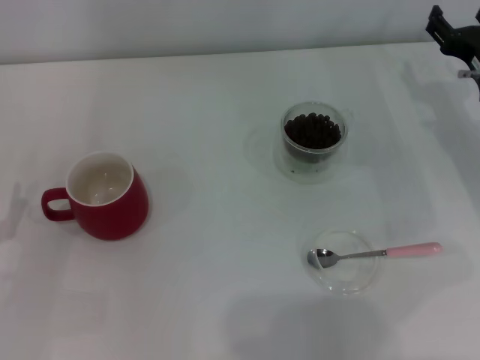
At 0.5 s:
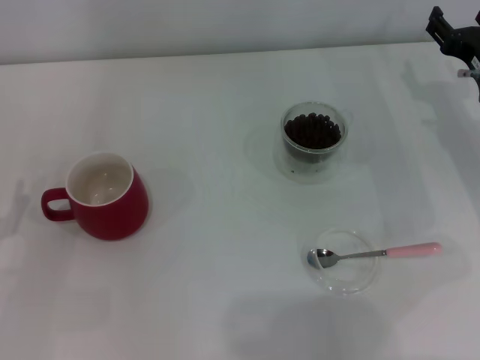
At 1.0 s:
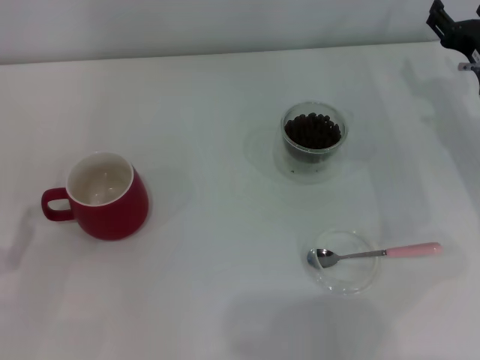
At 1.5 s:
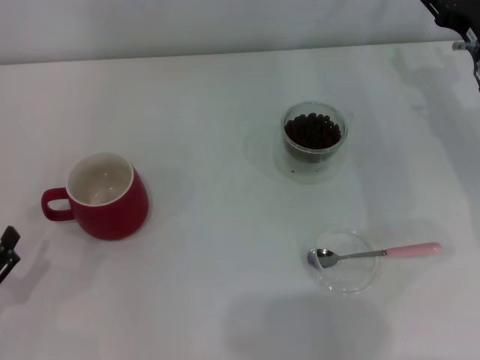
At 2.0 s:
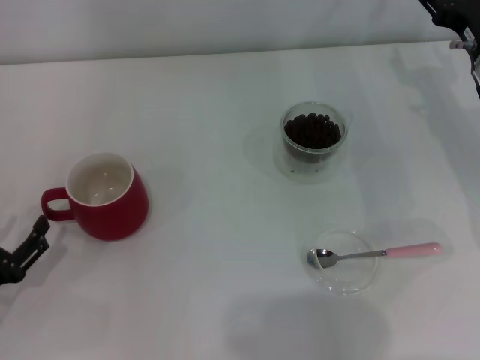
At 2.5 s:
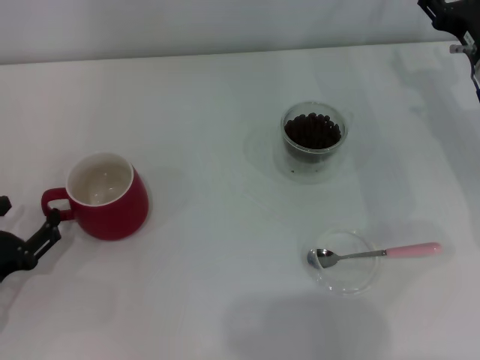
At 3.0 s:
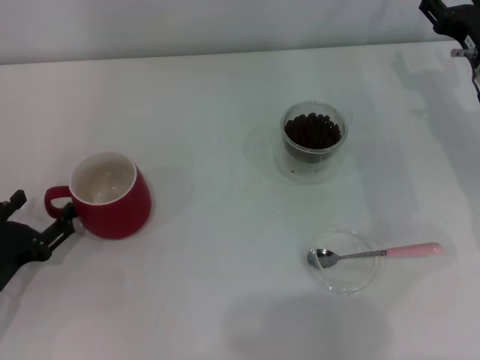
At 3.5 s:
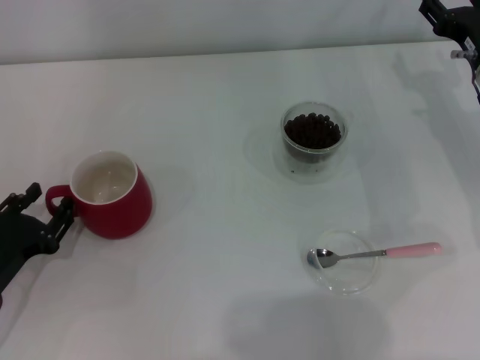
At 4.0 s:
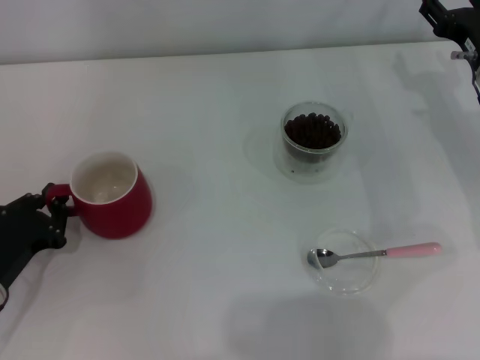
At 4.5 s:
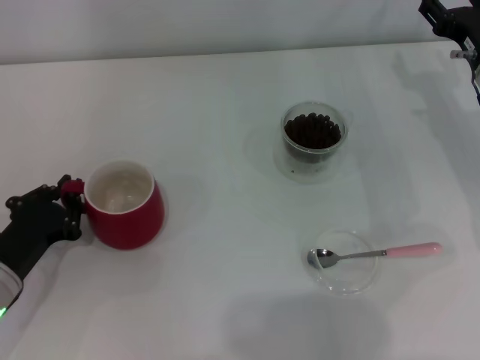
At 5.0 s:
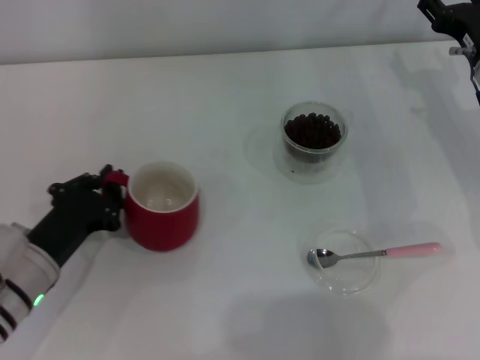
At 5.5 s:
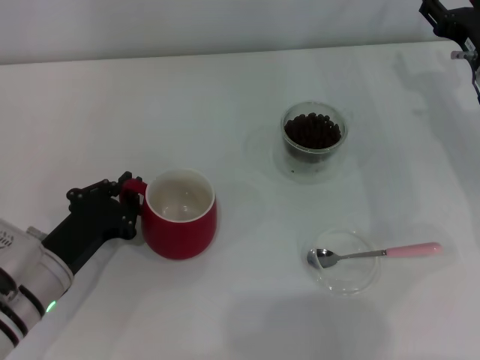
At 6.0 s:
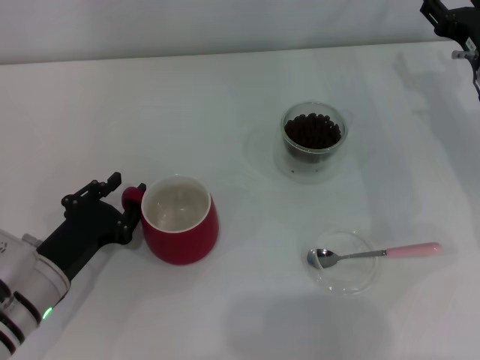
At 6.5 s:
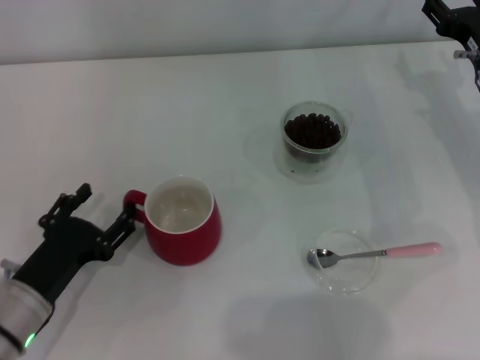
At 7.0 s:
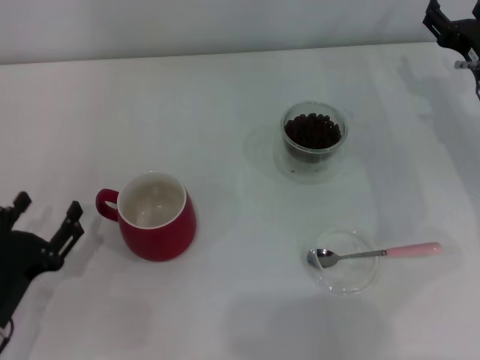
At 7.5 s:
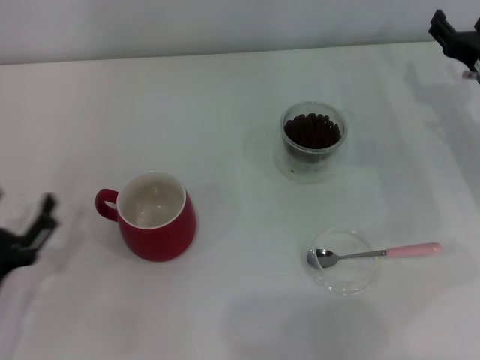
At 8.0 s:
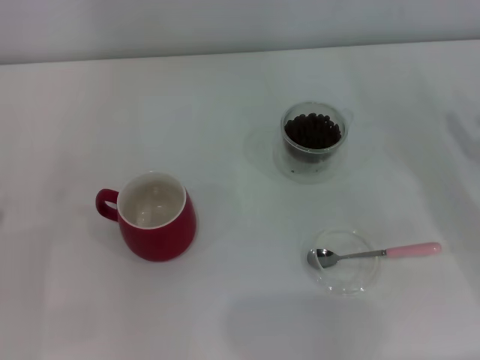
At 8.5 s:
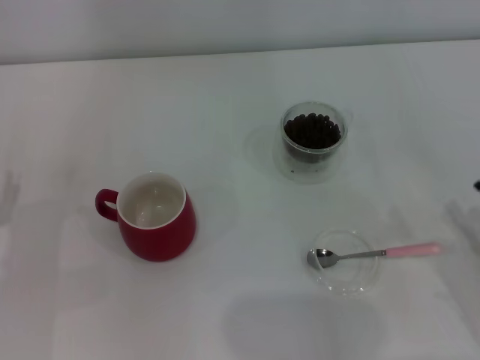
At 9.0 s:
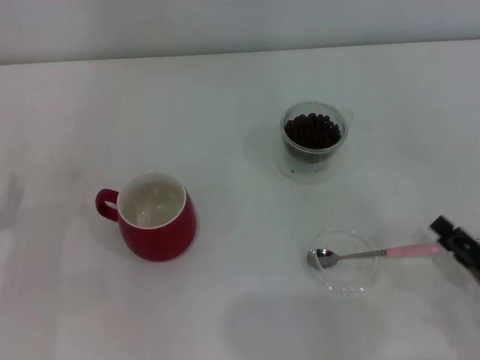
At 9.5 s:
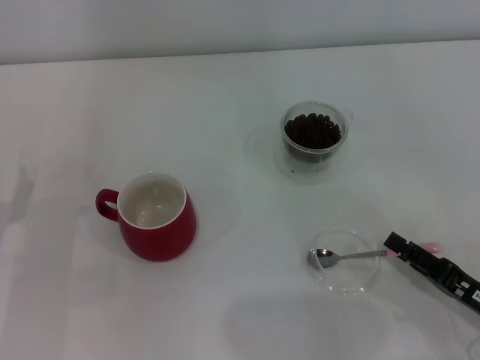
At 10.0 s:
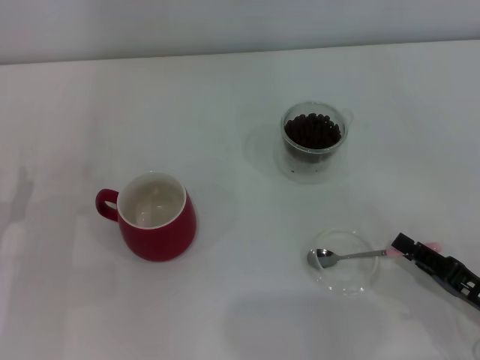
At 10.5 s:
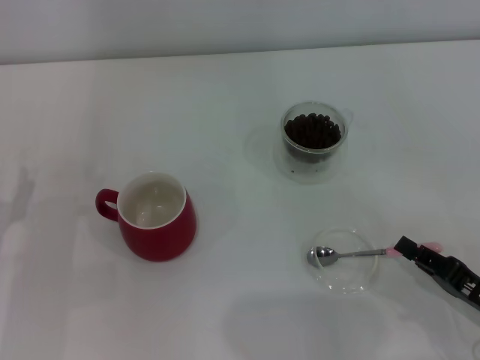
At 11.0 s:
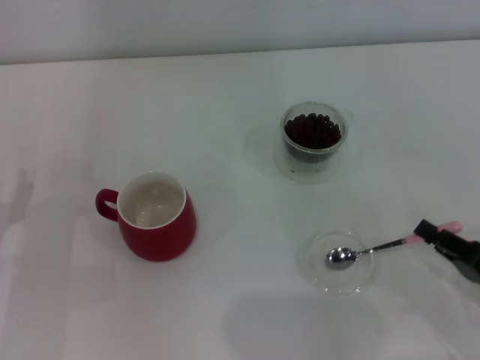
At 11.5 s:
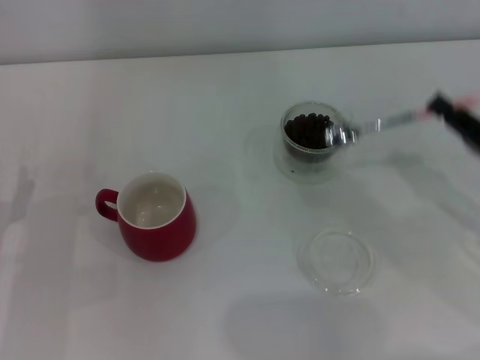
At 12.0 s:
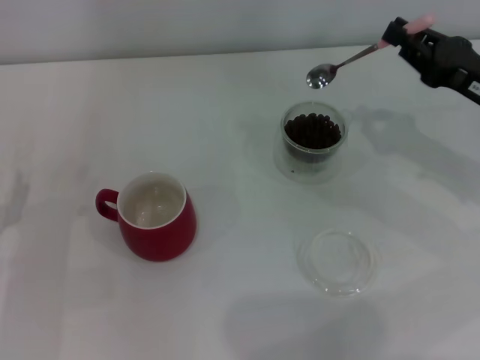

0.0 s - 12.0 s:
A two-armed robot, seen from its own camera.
Task of the whole recording: Use a pink spoon to take out the coffee beans from the glass and pour them into the red cup.
Step, 0.0 s - 7.0 s: Move the cup to the center of view with the left gripper.
Step, 7.5 s - 11.0 s: Pick up the spoon with the right gripper.
2.0 s - 4.0 s: The left gripper changes place by roughly 5 cm, and closes.
4.0 s - 6.0 s: The left gripper shifts approximately 5 cm to the right.
6.0 s - 8.0 s: The right gripper is displaced backward and to the right by approximately 15 cm; the left gripper travels to the left by roughly 10 cm, and opens up.
8.0 s - 10.0 s: The right gripper is displaced backward and to the left by some 15 cm, and closes up.
10.0 s - 12.0 s: The right gripper goes about 20 cm forward and upward, and closes its fingers.

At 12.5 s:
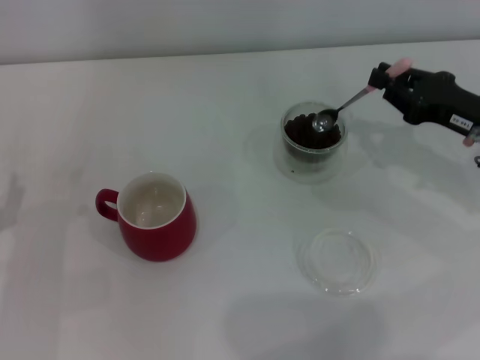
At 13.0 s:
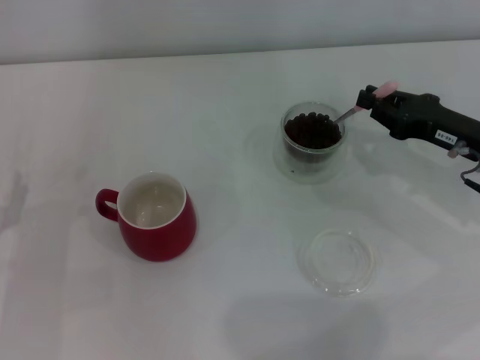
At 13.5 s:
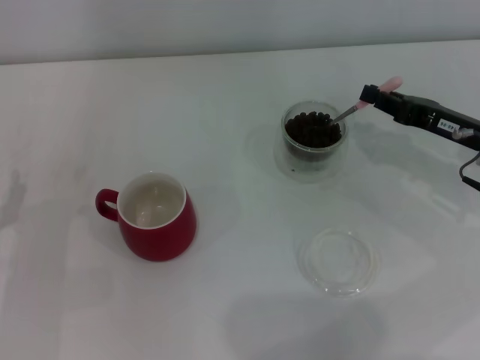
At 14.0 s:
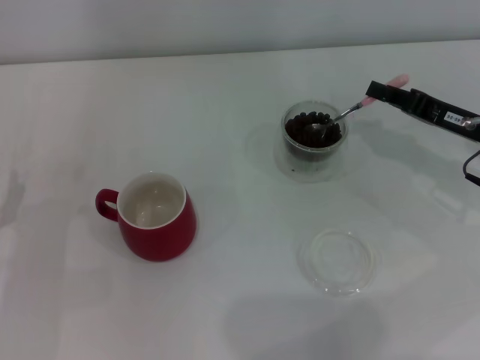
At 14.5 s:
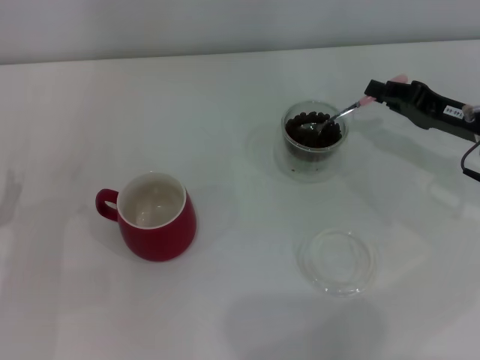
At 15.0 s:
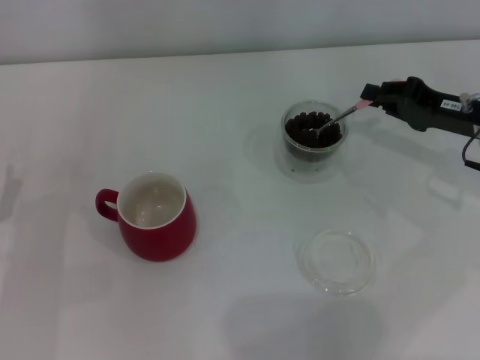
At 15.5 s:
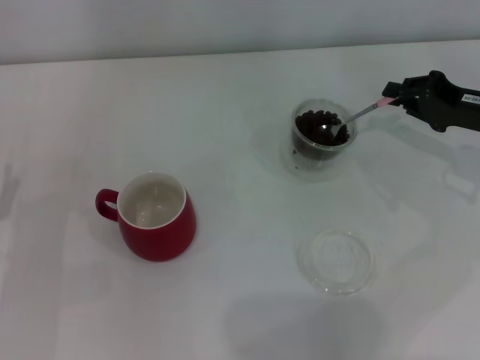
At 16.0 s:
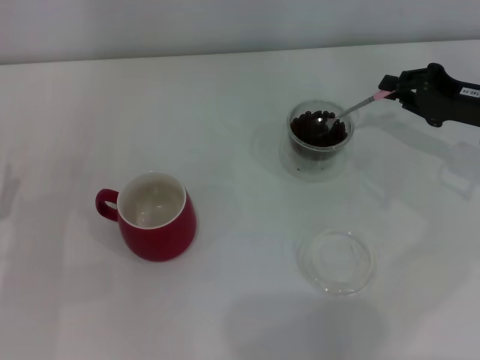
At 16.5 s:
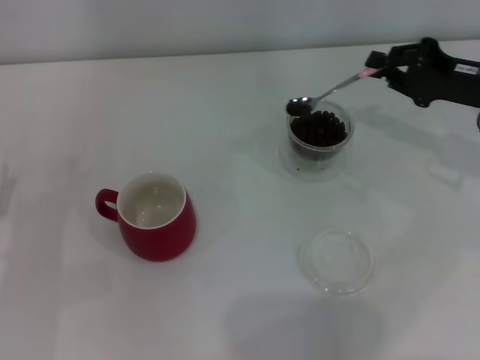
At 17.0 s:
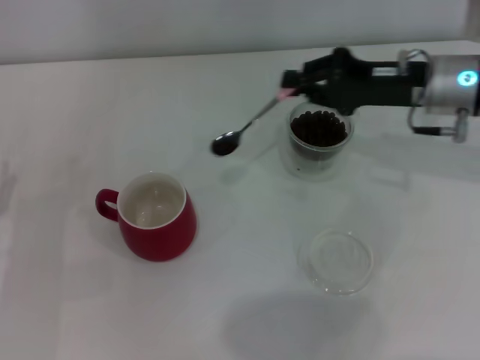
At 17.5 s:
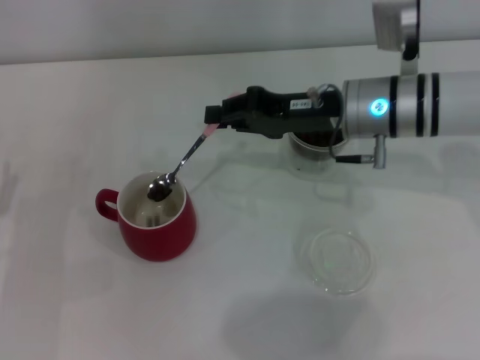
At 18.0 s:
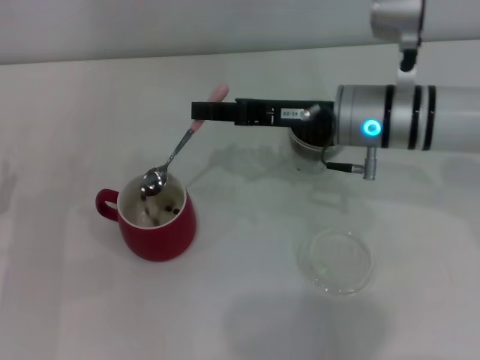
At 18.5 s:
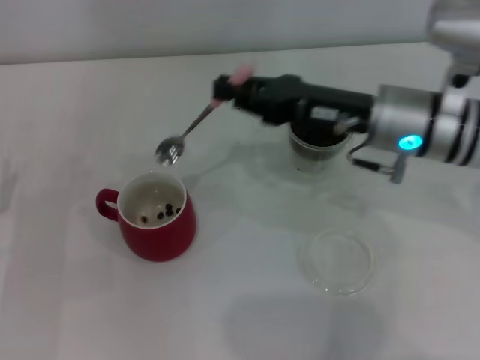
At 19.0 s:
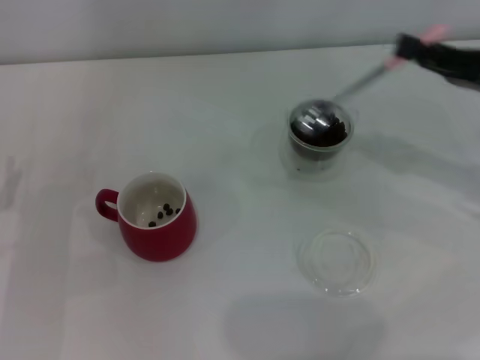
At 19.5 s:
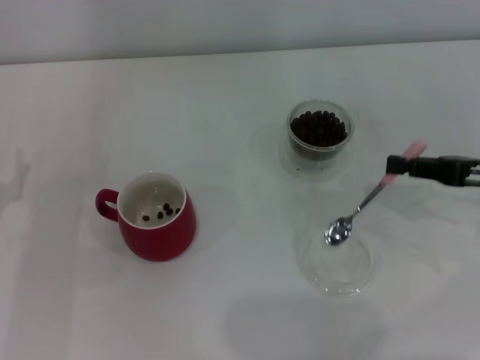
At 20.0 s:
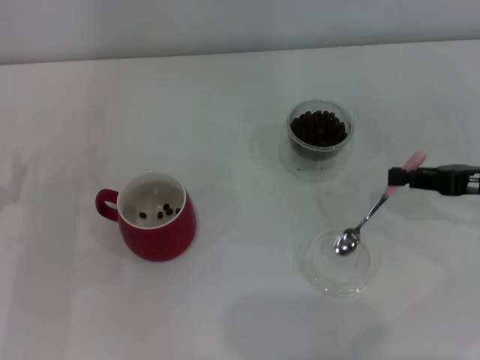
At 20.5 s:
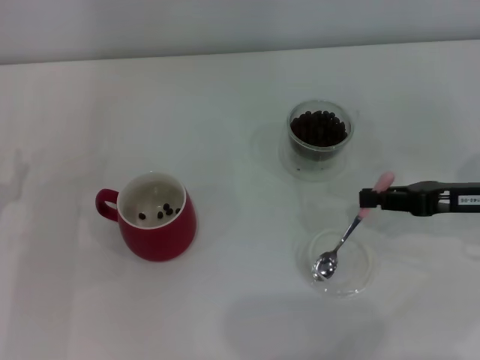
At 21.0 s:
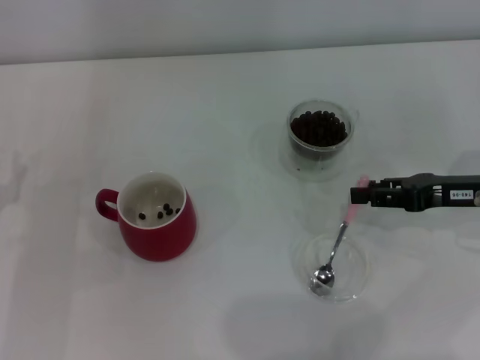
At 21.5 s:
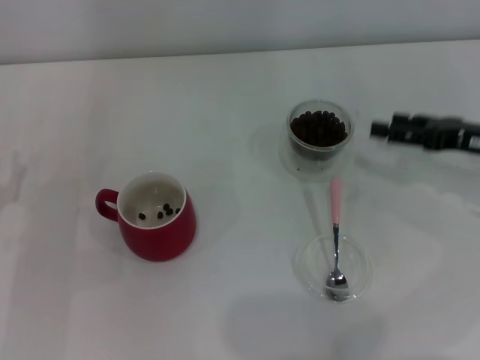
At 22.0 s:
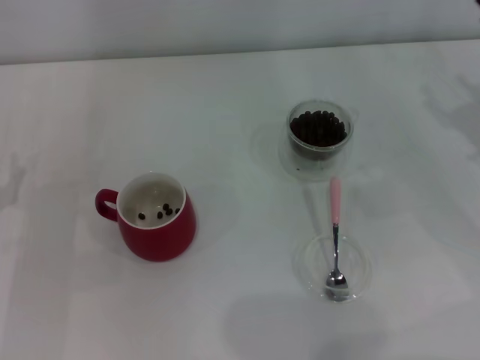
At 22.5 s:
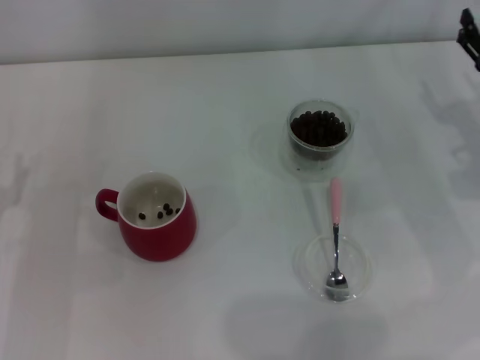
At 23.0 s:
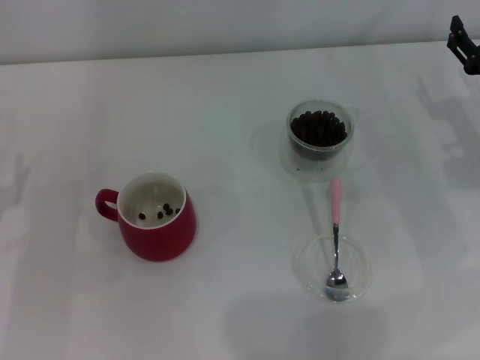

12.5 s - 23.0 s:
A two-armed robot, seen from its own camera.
Task of the whole recording: Use a pink spoon to take out the coffee beans from the glass and pour them into the red cup.
Step, 12.5 s - 18.0 s: Scoop a spoonful of beans into the cup with the right gripper.
Step, 18.5 s - 21.0 s: Place the spoon back in its original place with the right gripper.
14.5 s - 16.5 s: There are only small adjustments of the grippers.
16.5 s - 19.0 s: The right gripper moves backward, roughly 5 cm, and travels to the left and back again, some 15 cm each way.
19.0 s - 21.0 s: The right gripper shifts approximately 5 cm downward.
21.0 s - 23.0 s: The right gripper opens.
